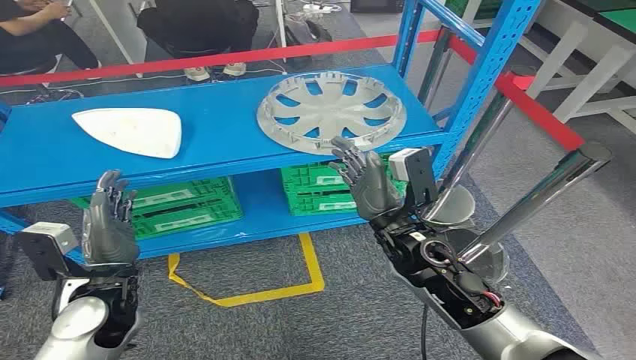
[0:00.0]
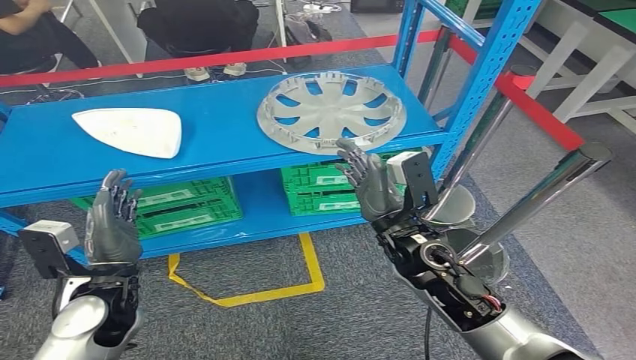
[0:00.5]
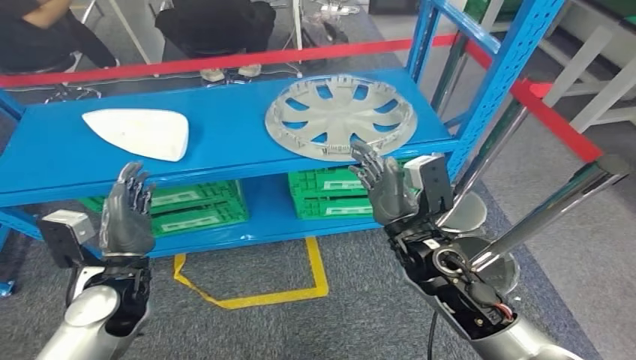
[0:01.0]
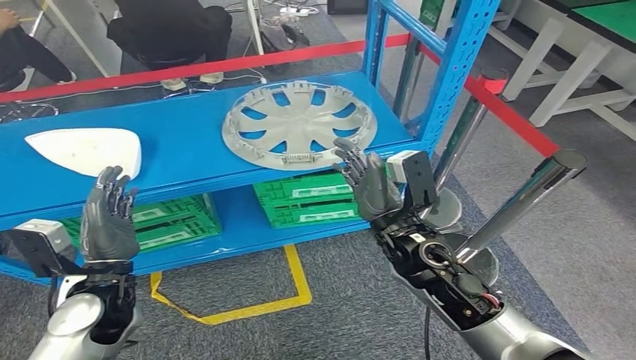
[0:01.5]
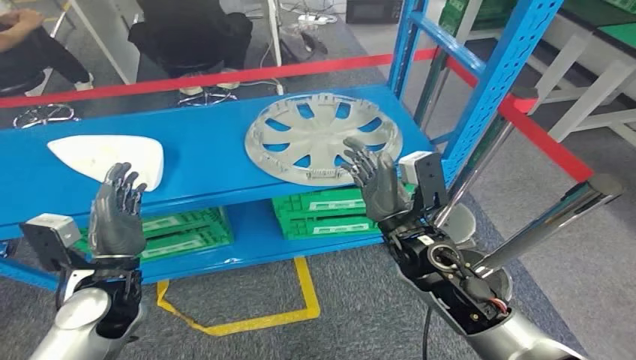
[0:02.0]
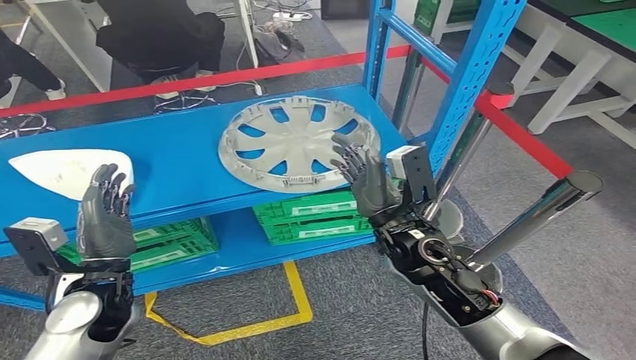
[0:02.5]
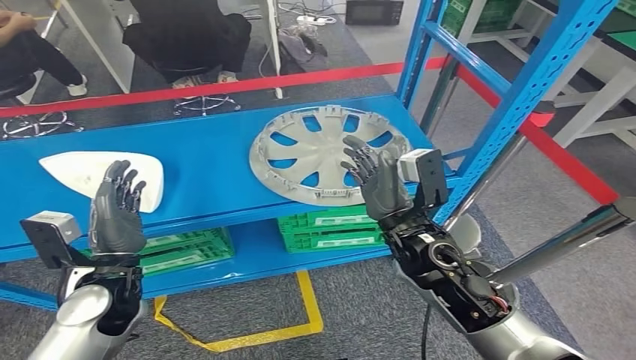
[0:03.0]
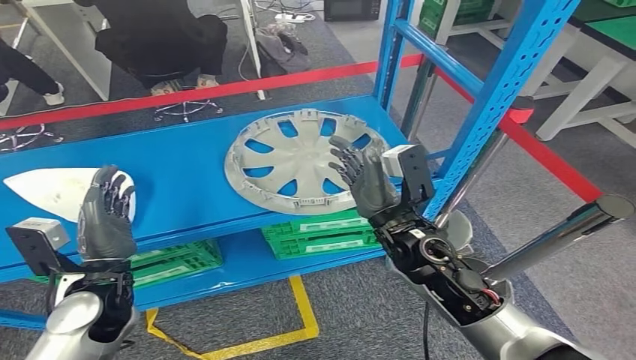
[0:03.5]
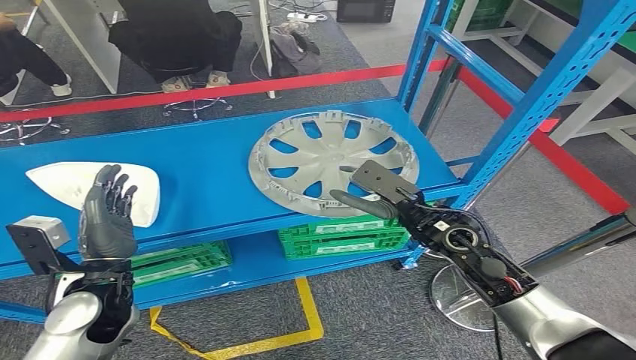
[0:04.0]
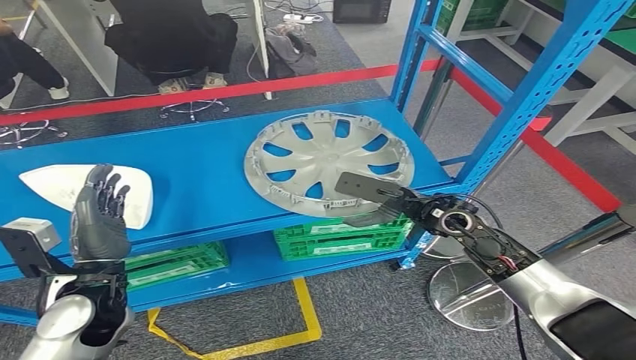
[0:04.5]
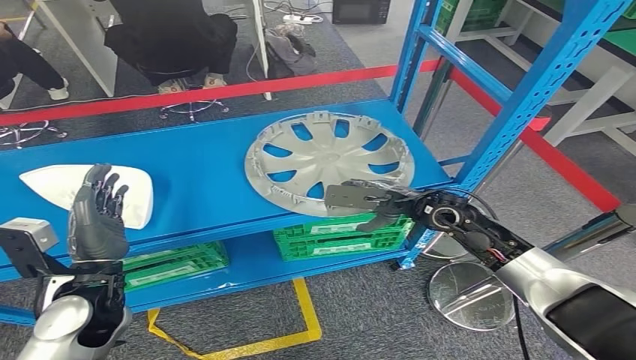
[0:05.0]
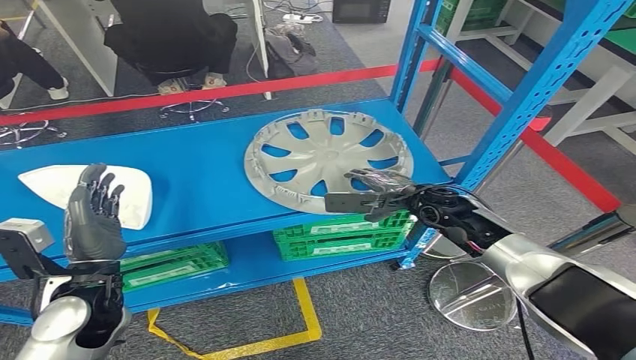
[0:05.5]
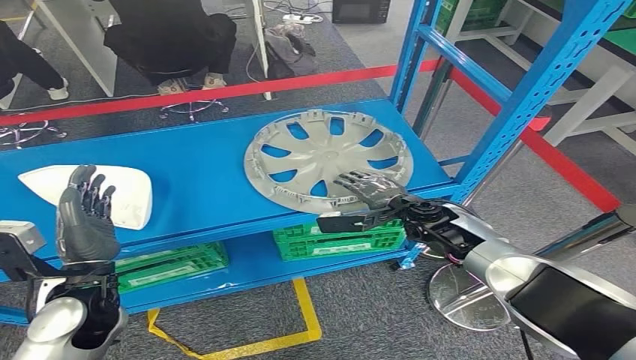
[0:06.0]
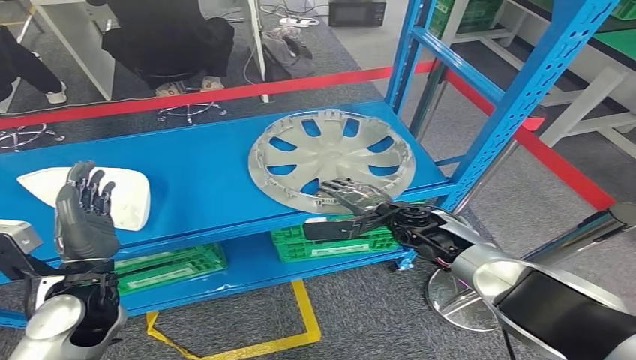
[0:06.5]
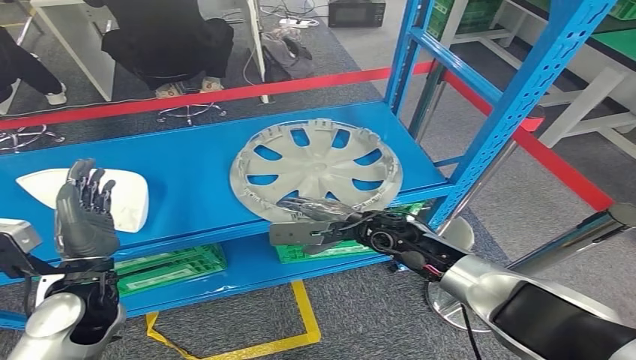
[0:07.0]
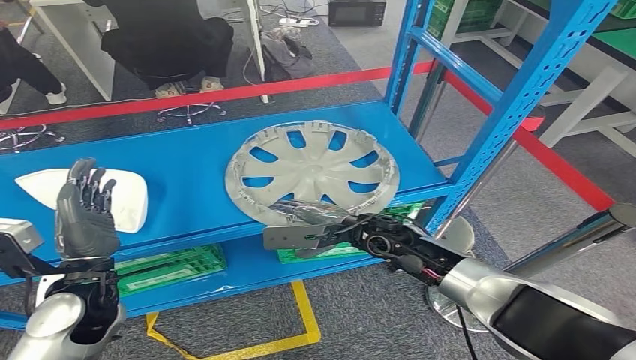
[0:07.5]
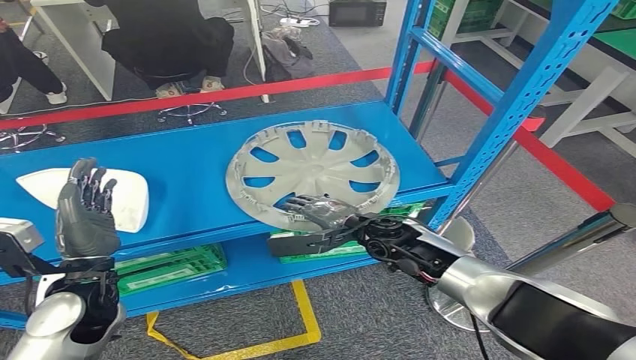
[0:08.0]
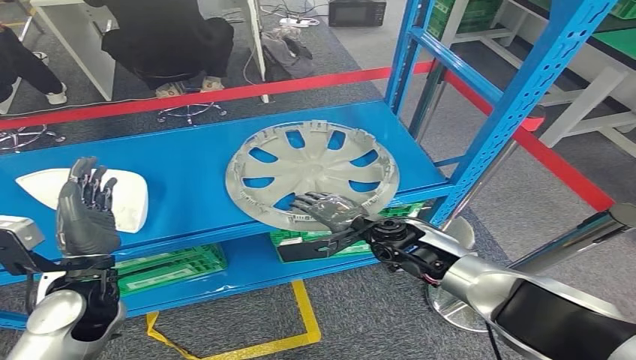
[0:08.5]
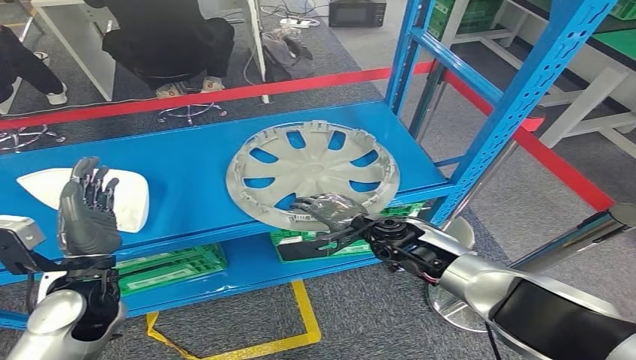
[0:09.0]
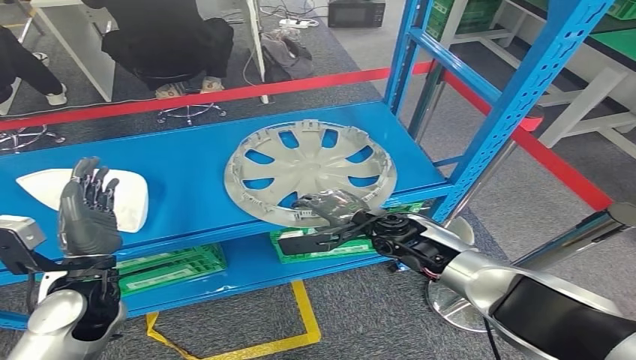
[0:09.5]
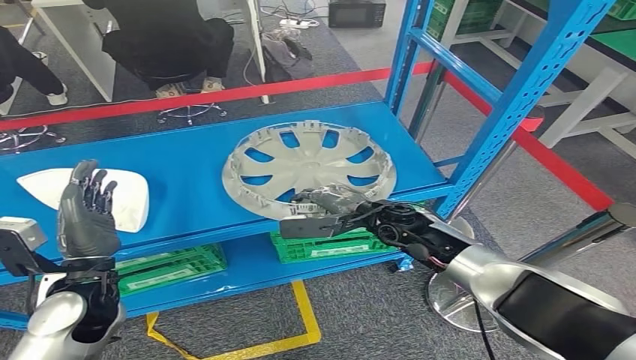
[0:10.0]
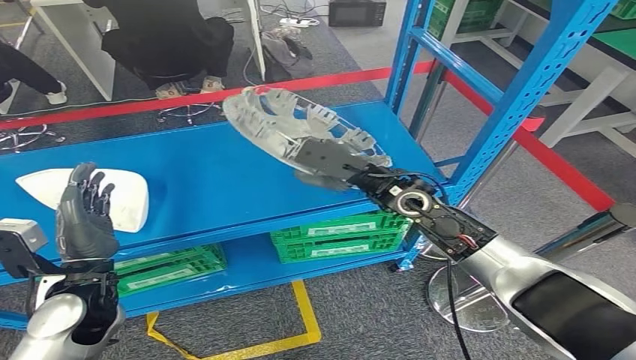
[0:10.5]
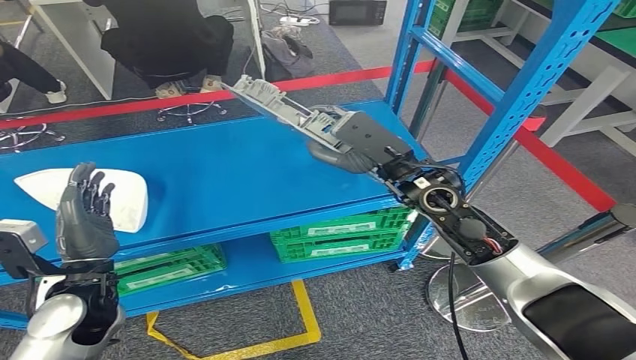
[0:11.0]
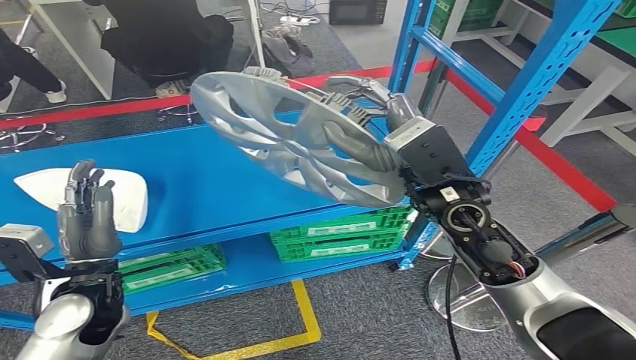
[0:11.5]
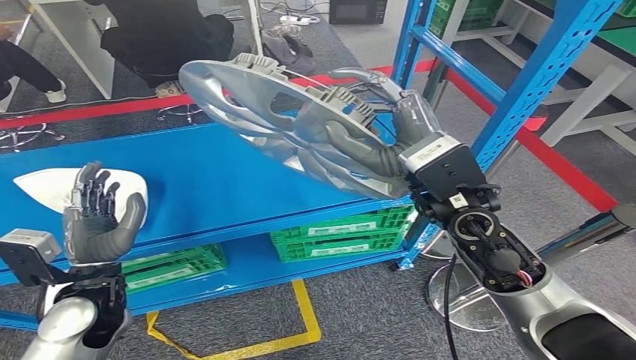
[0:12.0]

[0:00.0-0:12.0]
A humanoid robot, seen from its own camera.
Step, 0:00.0 to 0:06.5: Pick up the small component from the shelf.
0:08.0 to 0:10.0: The hands make only small movements.

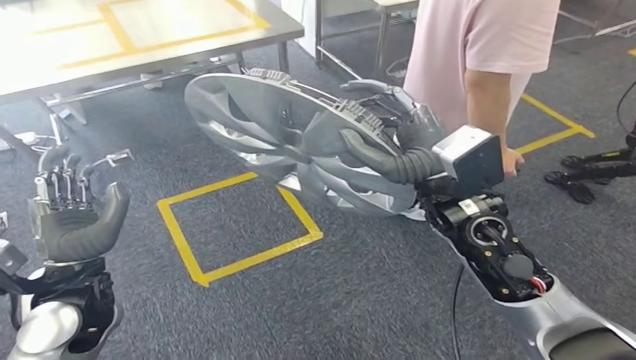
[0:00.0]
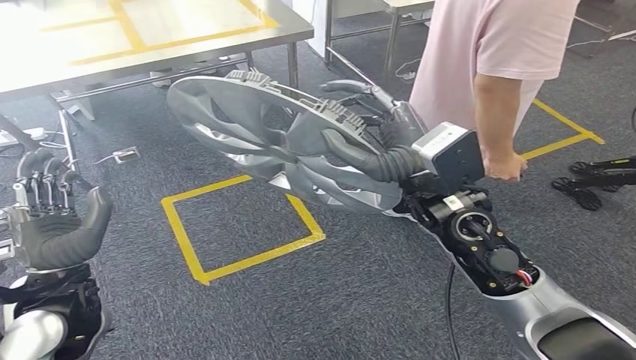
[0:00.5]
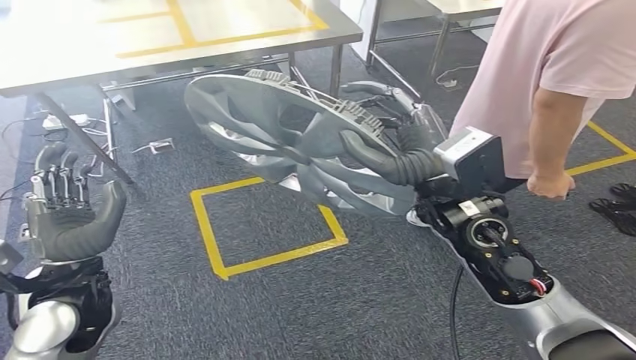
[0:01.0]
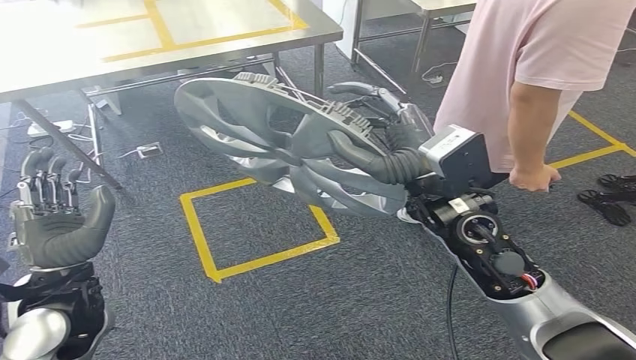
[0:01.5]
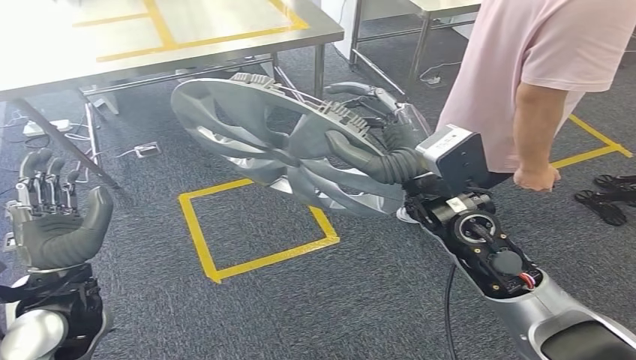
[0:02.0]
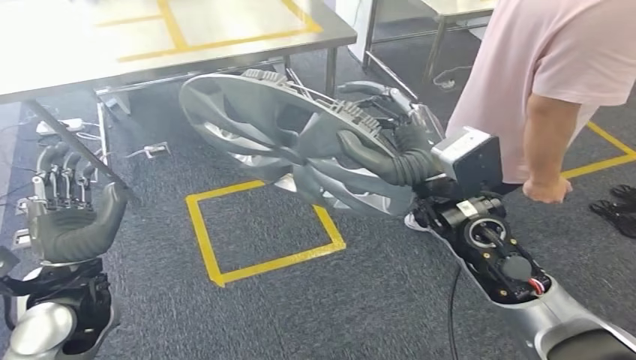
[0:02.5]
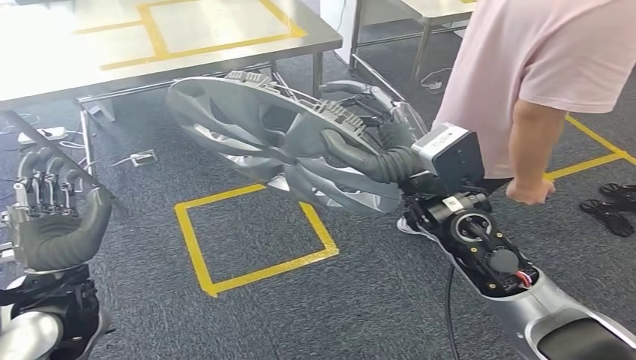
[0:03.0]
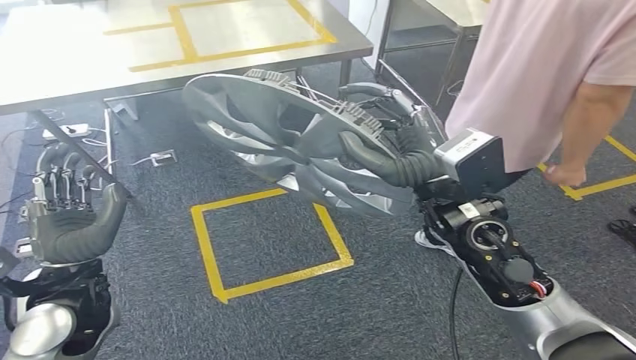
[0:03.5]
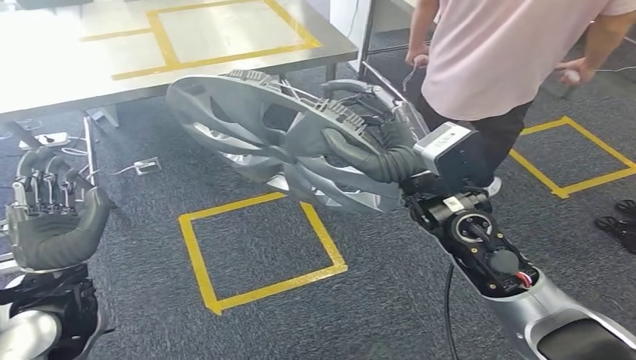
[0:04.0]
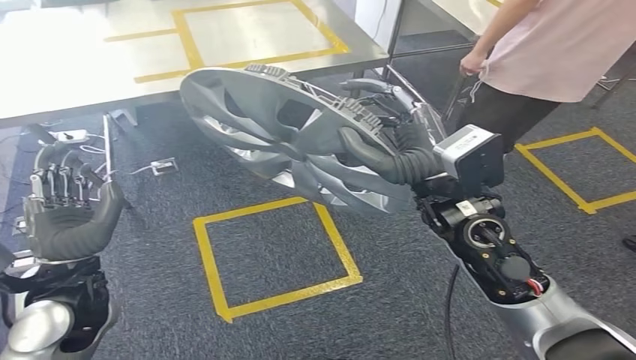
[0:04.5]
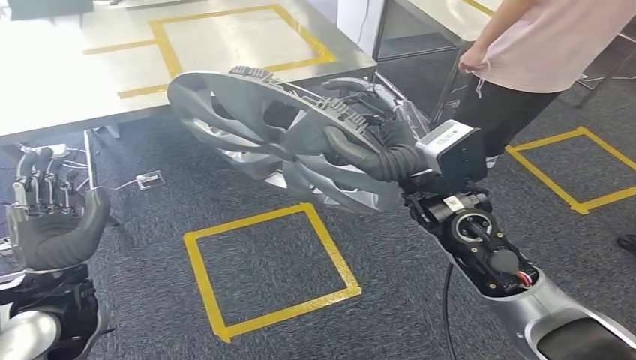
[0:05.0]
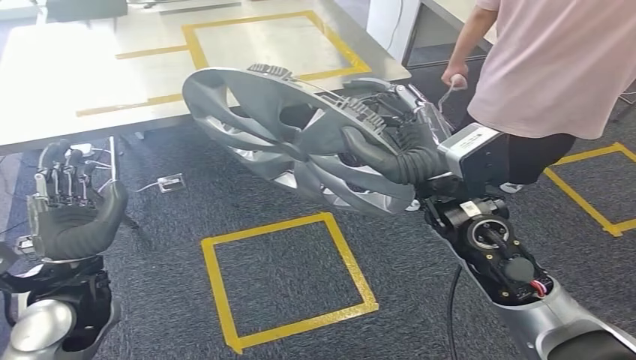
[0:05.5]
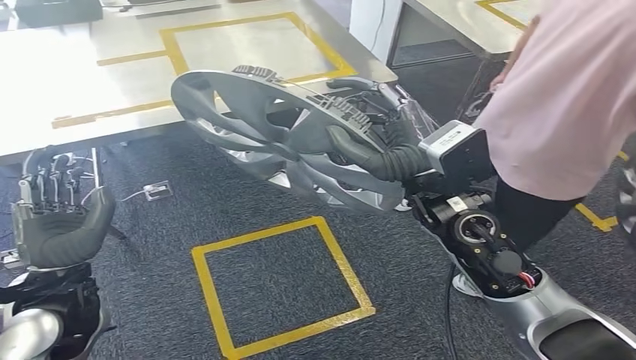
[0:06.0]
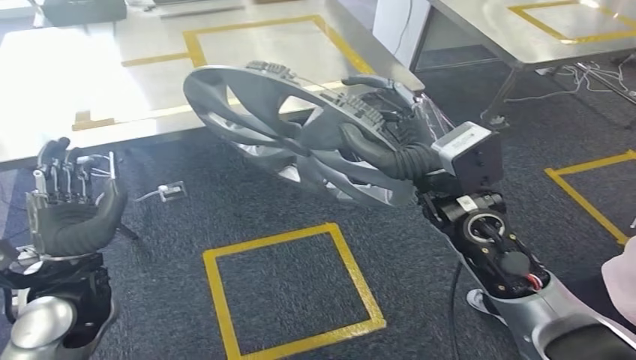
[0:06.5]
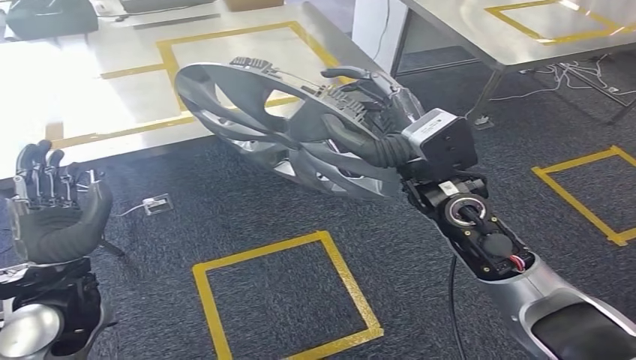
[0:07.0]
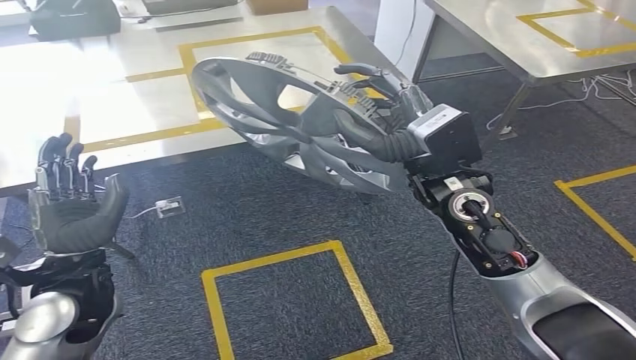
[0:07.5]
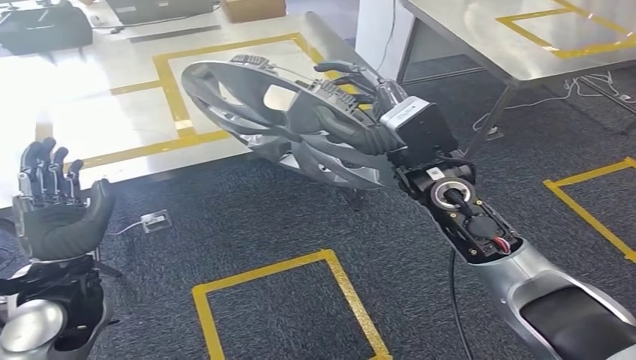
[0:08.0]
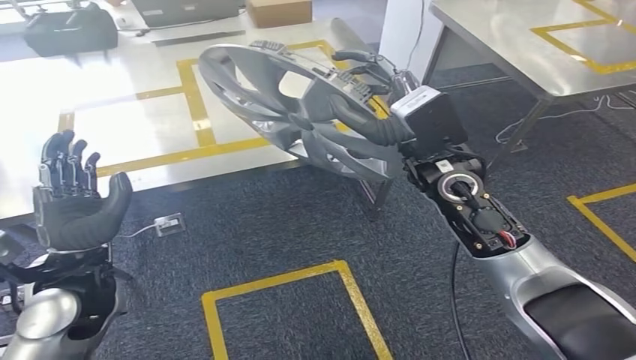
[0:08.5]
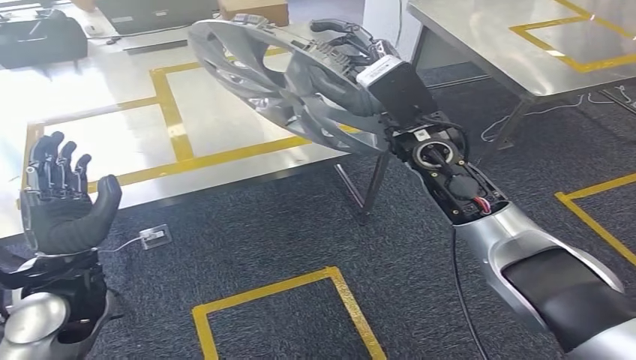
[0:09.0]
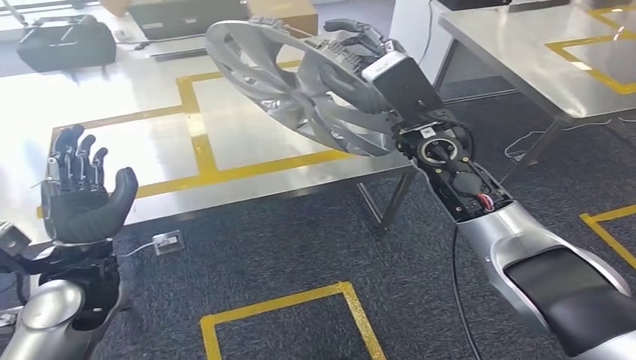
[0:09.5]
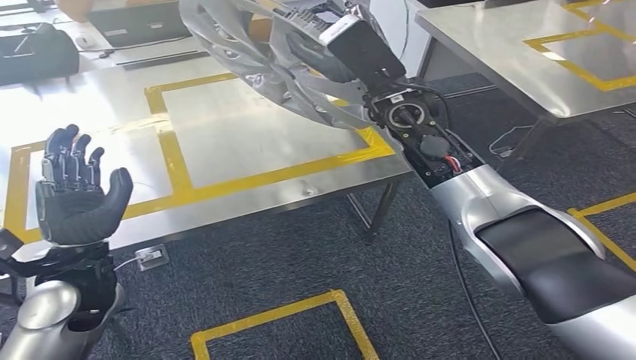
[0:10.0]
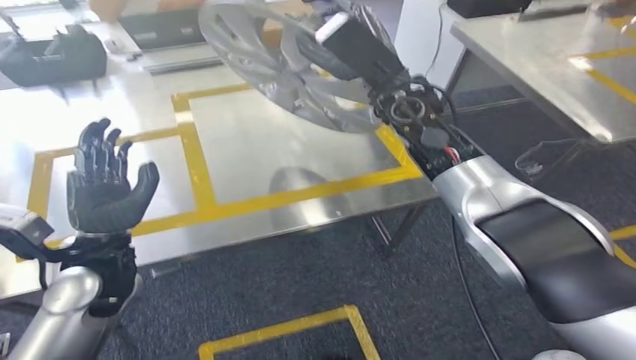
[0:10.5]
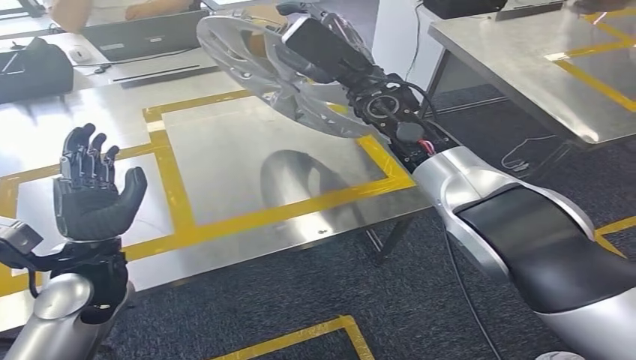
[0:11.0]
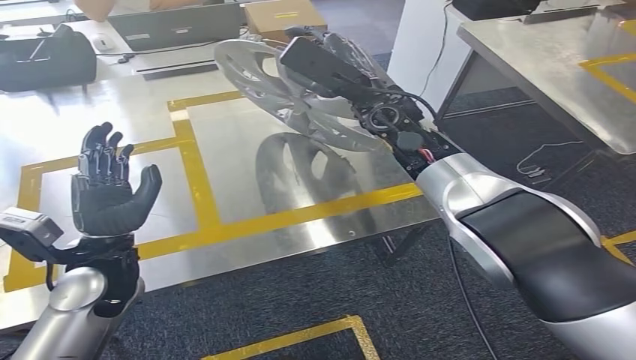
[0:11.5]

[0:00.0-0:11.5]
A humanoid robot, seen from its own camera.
Step, 0:00.0 to 0:04.0: Move the small component to the workbench.
